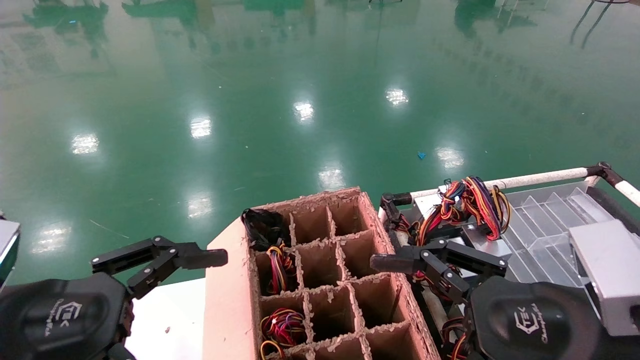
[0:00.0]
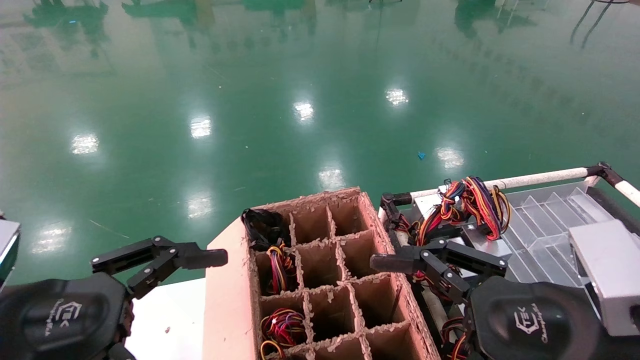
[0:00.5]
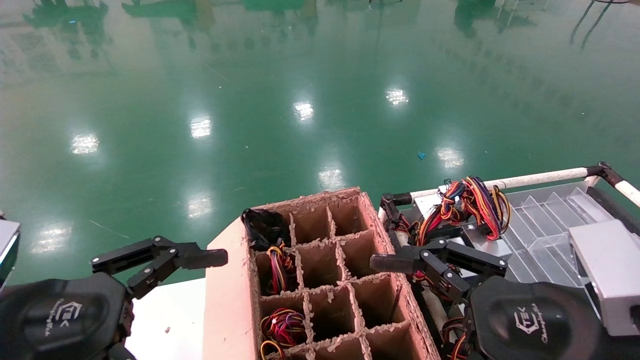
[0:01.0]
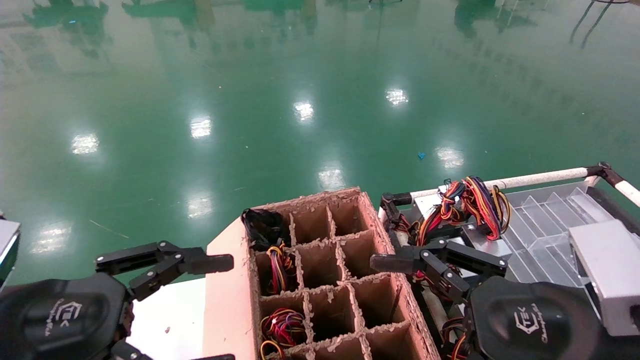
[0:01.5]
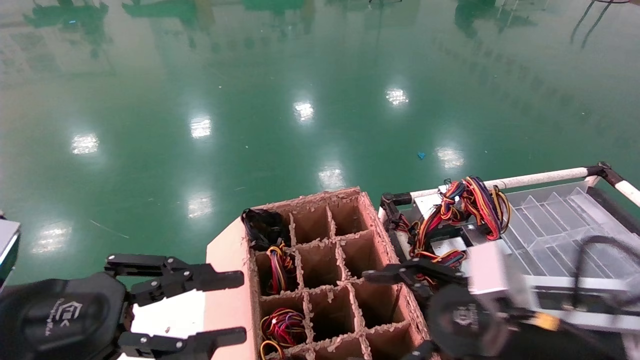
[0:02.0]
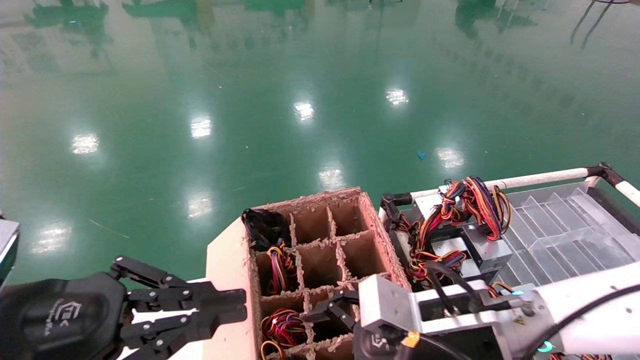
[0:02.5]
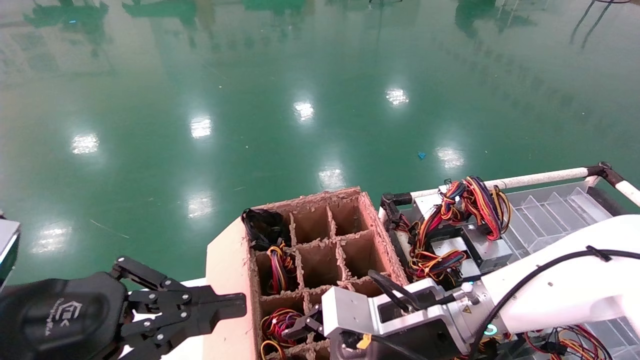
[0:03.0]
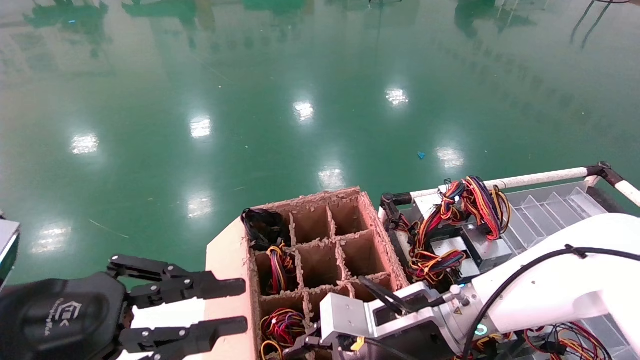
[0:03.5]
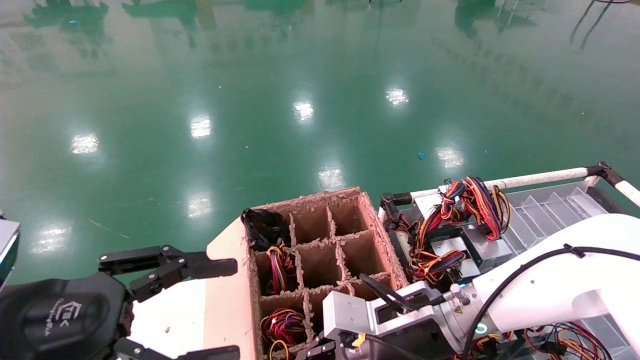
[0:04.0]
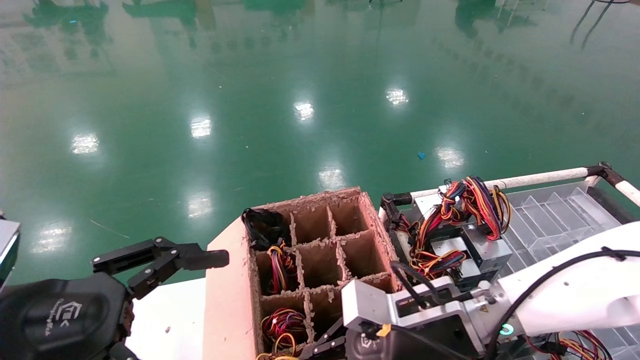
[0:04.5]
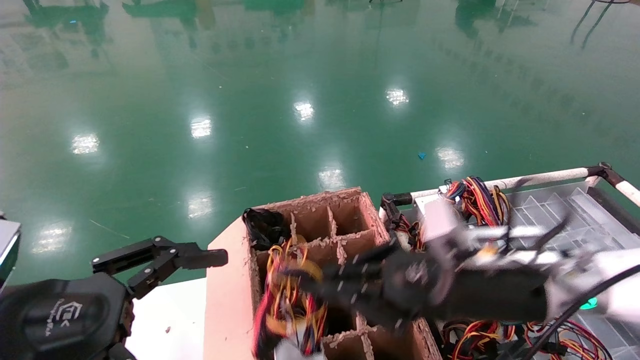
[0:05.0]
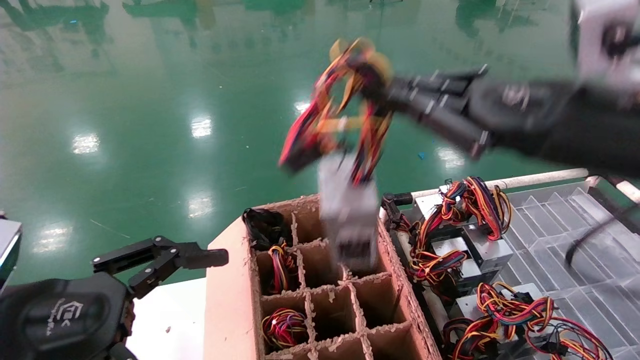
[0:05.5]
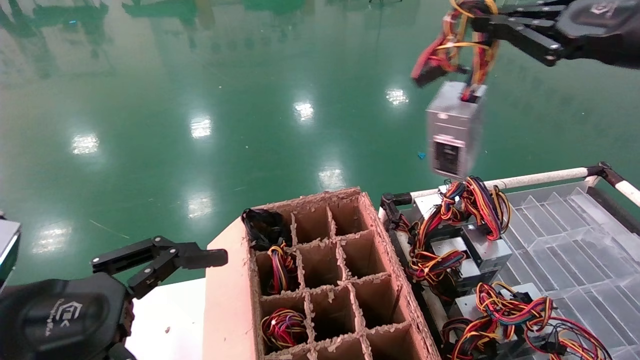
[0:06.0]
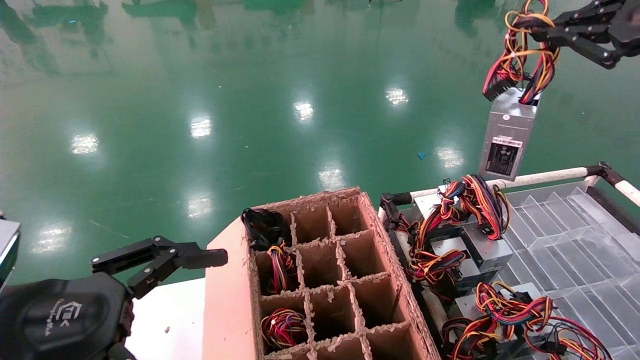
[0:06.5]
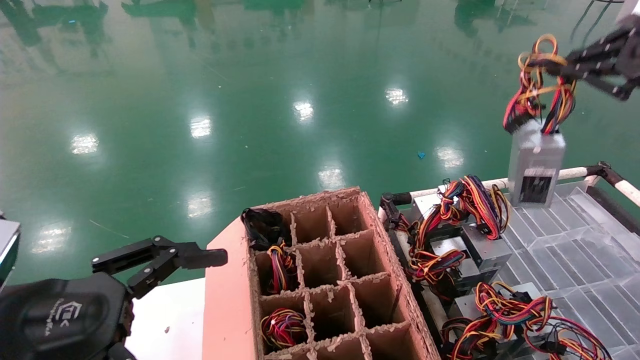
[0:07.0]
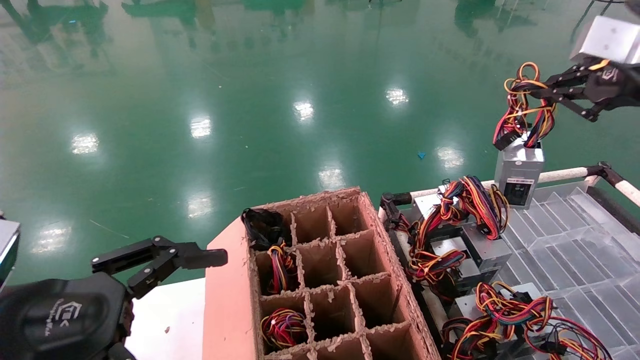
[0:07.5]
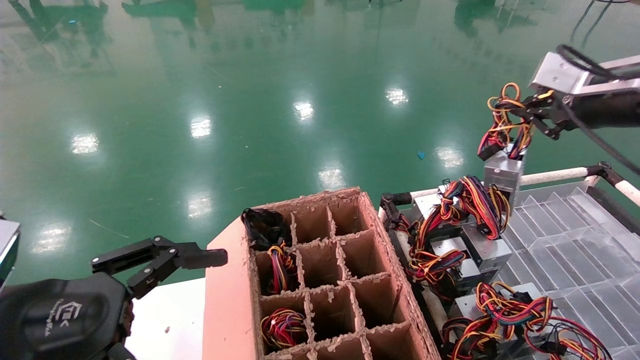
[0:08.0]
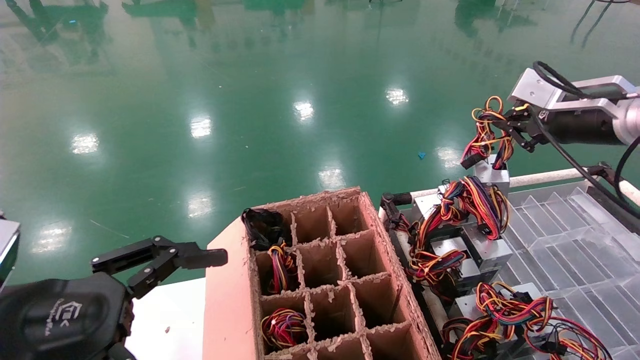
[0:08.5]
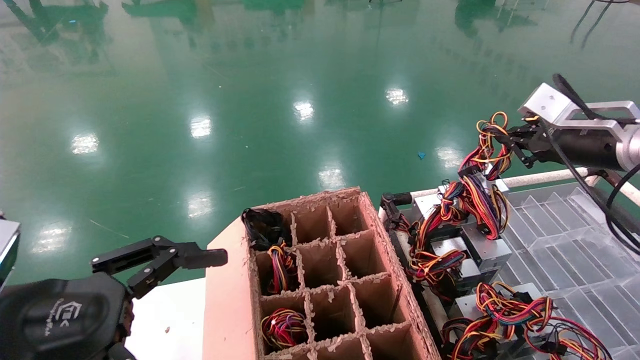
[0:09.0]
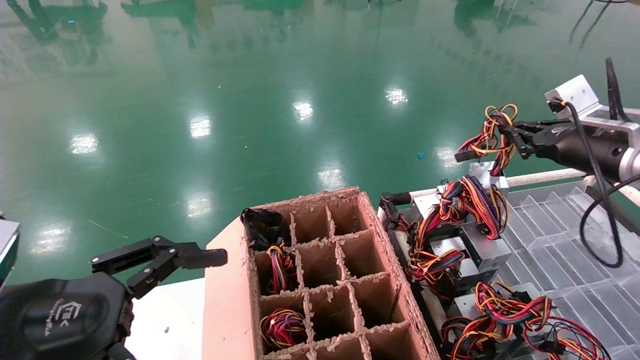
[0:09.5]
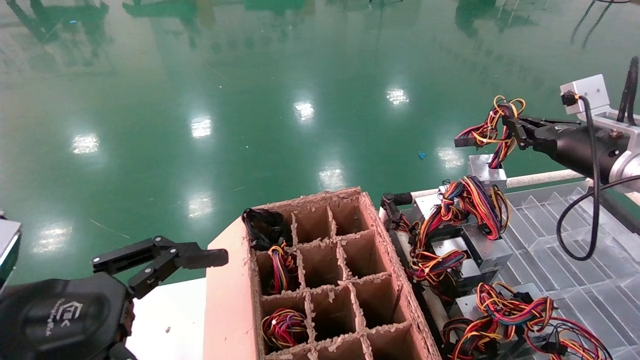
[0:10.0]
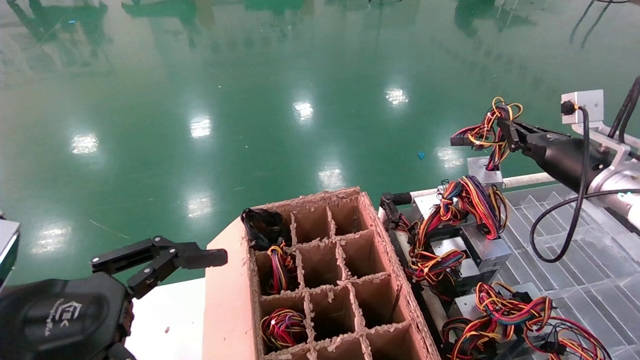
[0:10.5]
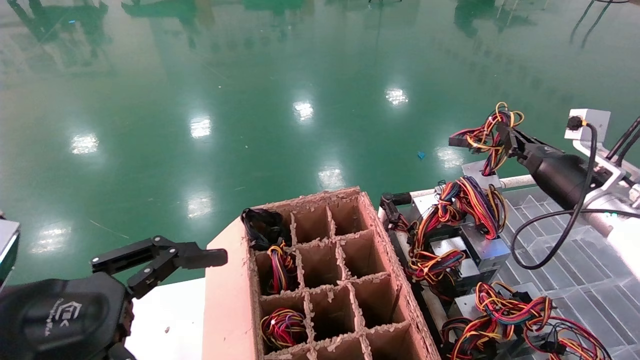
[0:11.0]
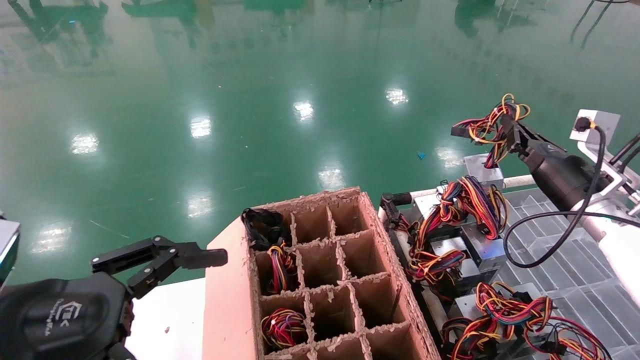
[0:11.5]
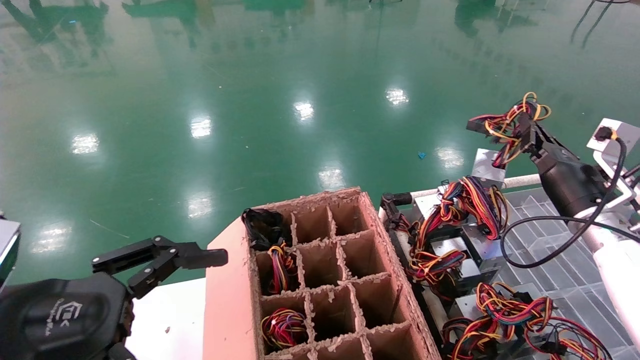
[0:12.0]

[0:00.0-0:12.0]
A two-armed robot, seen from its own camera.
Step, 0:02.0 to 0:04.0: Grab and lift the power supply from the large box.
0:00.0 to 0:02.0: The left gripper closes; the right gripper heads forward, covering roughly 5 cm.
0:02.0 to 0:04.0: The right gripper shifts some 15 cm to the left, forward and downward, and closes; the left gripper closes, then opens again.
0:04.0 to 0:06.0: The left gripper opens its fingers, while the right gripper goes approximately 35 cm upward and to the right.
0:06.0 to 0:08.0: The right gripper goes some 10 cm forward.
0:08.0 to 0:10.0: The right gripper heads downward, covering about 10 cm.
0:10.0 to 0:12.0: The right gripper travels downward by about 10 cm.

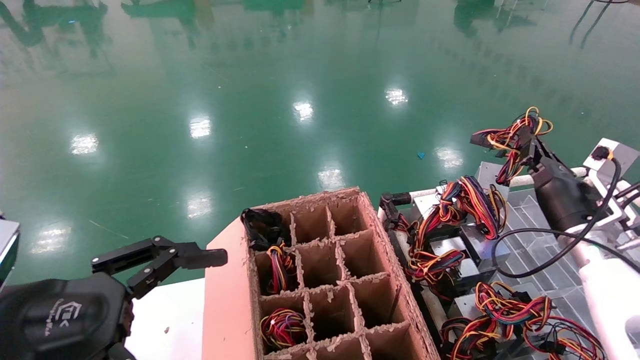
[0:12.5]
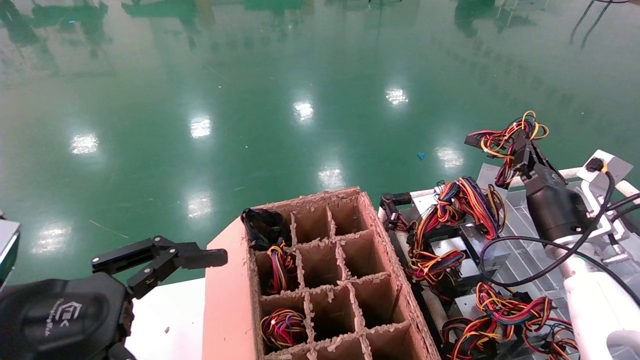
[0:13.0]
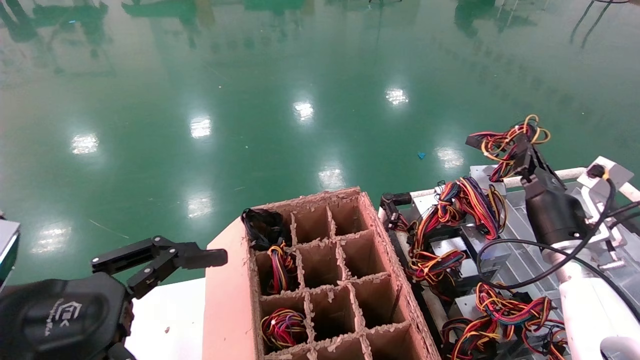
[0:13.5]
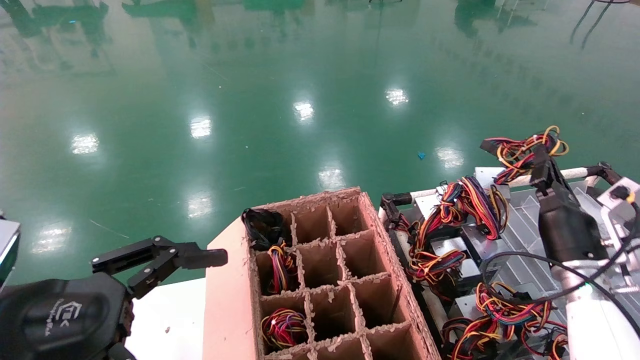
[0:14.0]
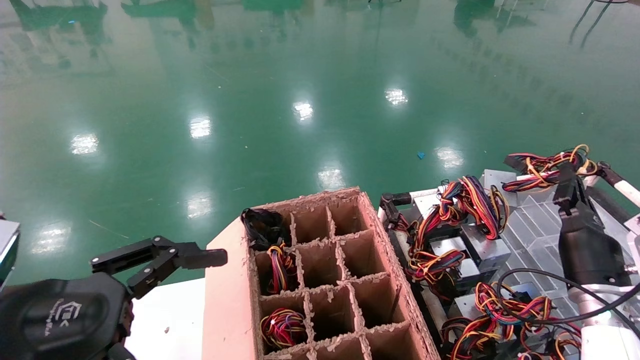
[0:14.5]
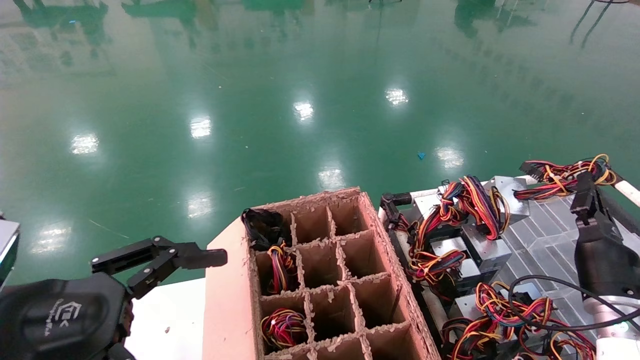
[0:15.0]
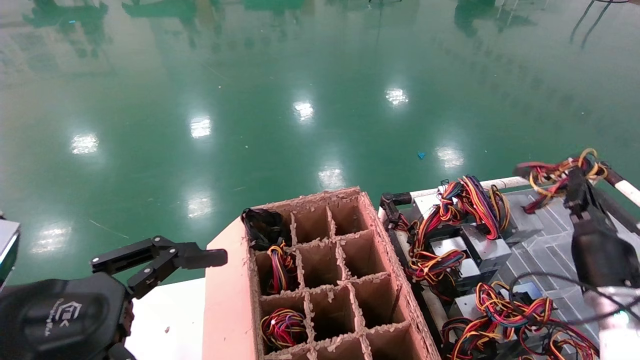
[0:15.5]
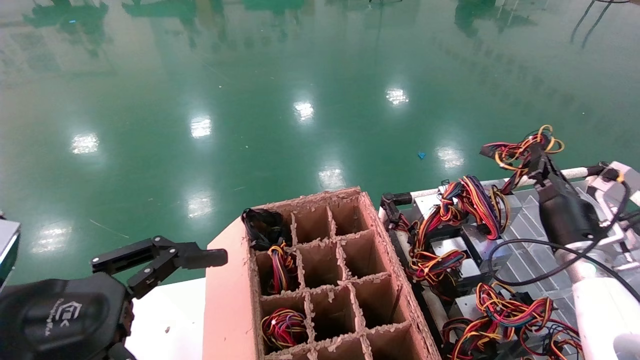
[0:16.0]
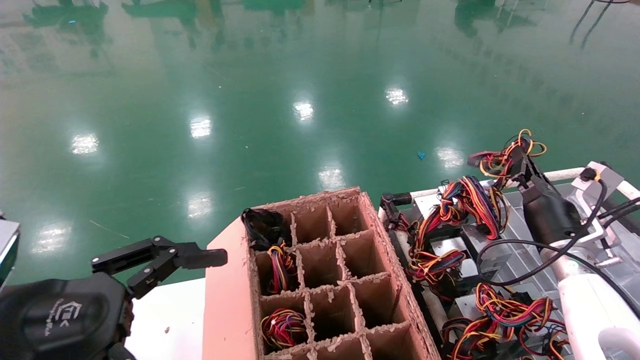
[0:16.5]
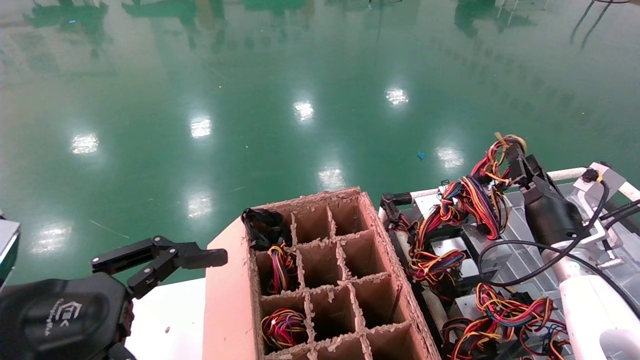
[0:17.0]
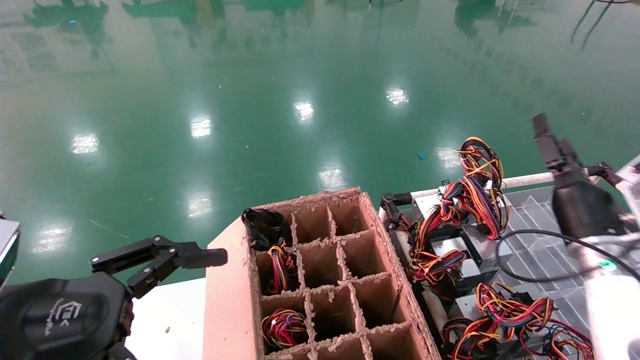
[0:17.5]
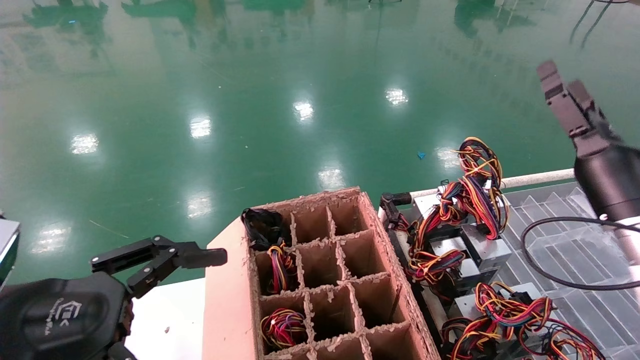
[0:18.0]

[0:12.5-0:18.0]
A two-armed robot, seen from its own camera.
Step, 0:12.5 to 0:17.0: Place the power supply on the operating table.
0:12.5 to 0:14.5: The right gripper moves downward, about 10 cm.
0:14.5 to 0:16.0: The right gripper changes place by roughly 5 cm.
0:16.0 to 0:18.0: The right gripper heads upward and backward, covering roughly 10 cm, and opens.
